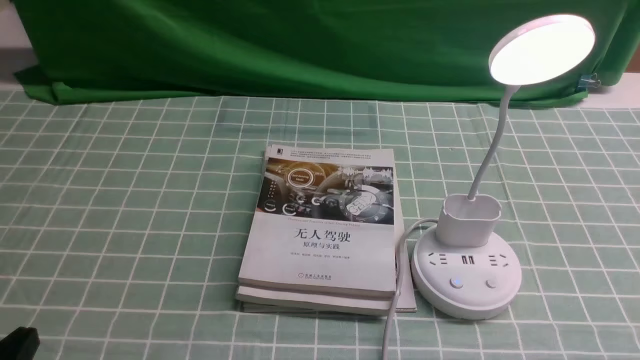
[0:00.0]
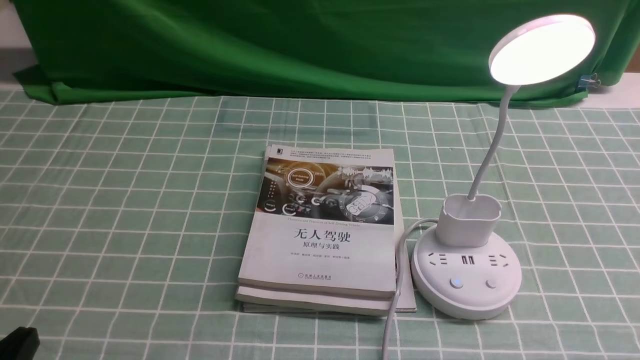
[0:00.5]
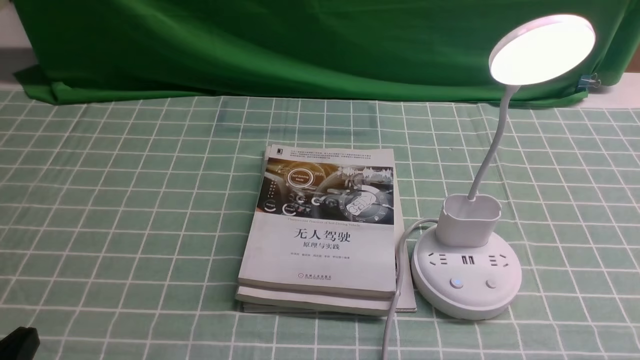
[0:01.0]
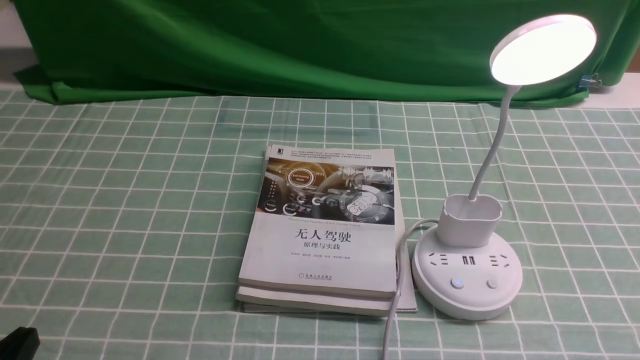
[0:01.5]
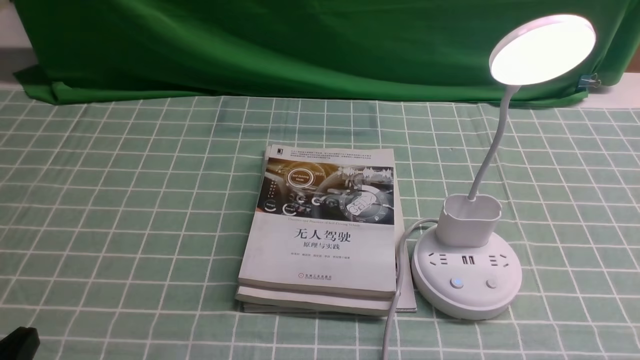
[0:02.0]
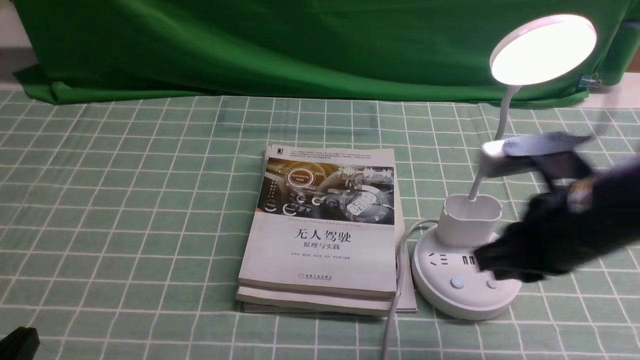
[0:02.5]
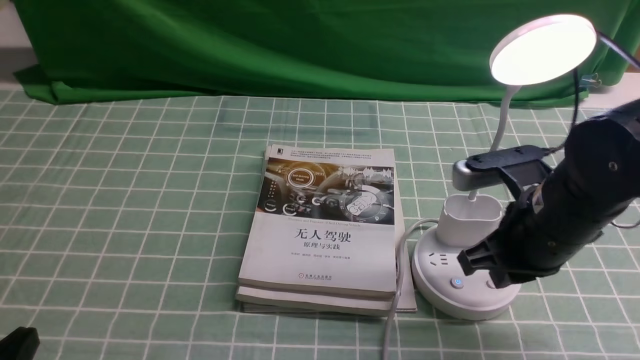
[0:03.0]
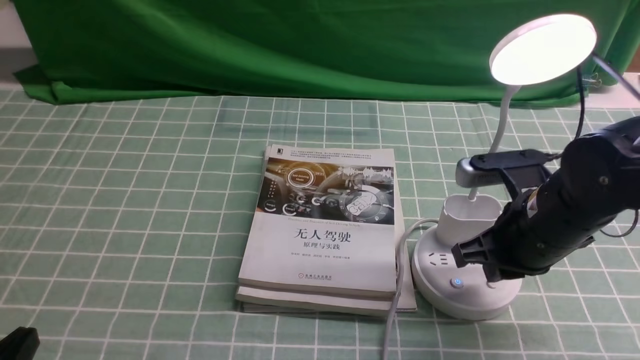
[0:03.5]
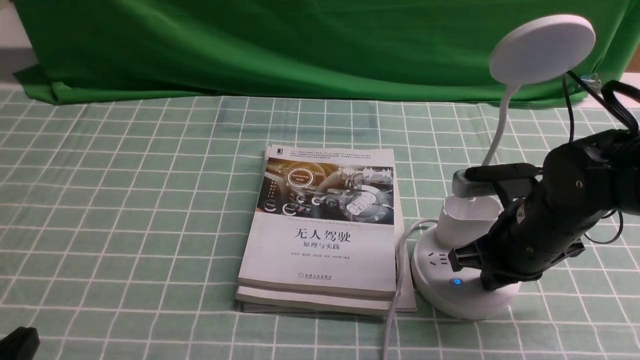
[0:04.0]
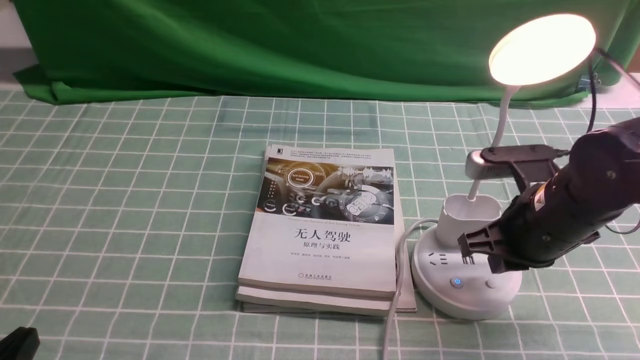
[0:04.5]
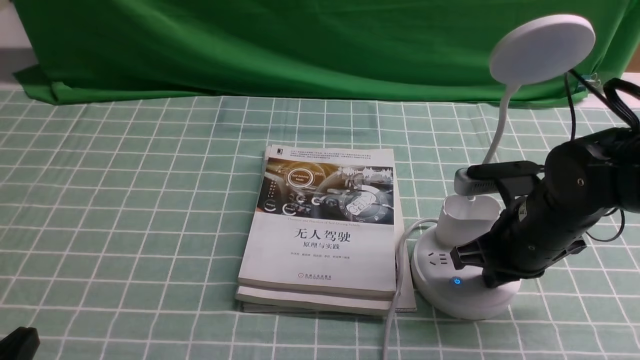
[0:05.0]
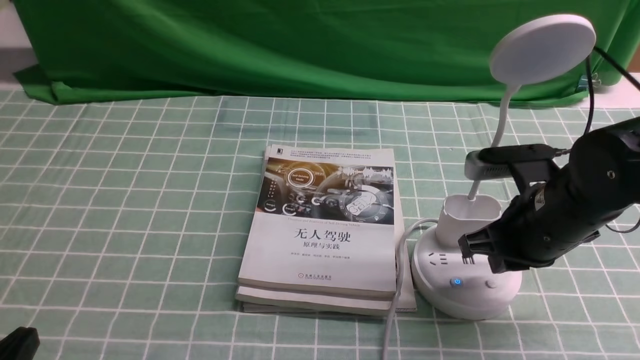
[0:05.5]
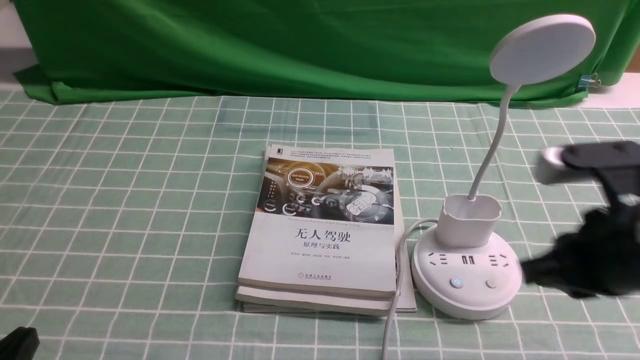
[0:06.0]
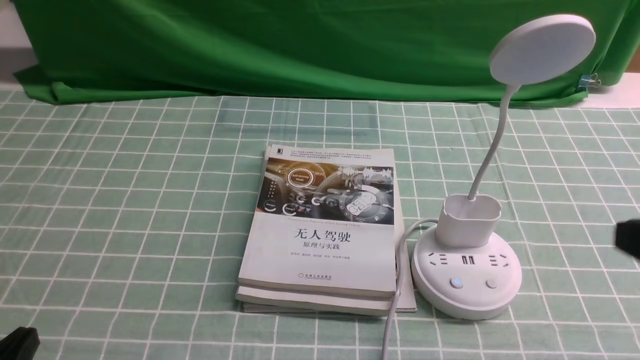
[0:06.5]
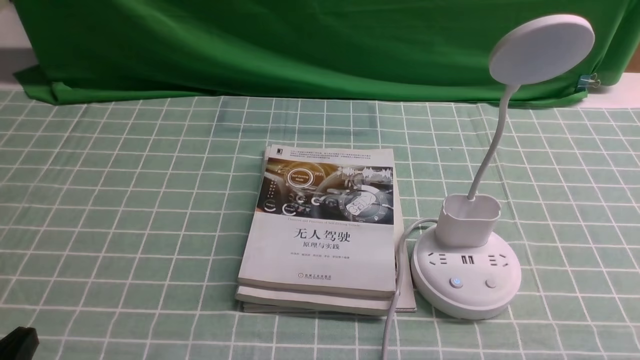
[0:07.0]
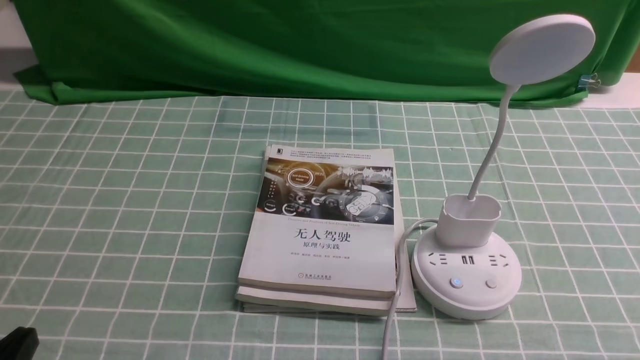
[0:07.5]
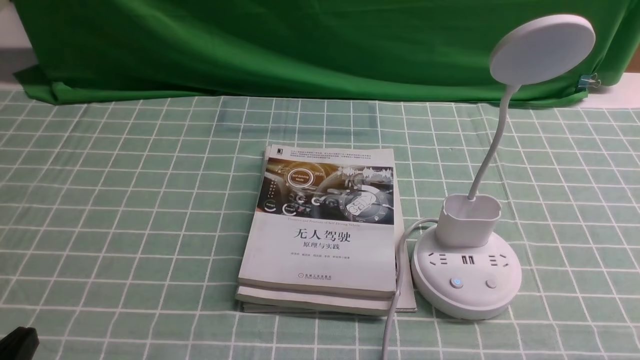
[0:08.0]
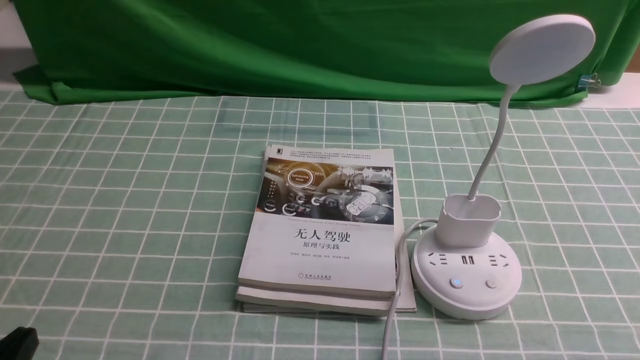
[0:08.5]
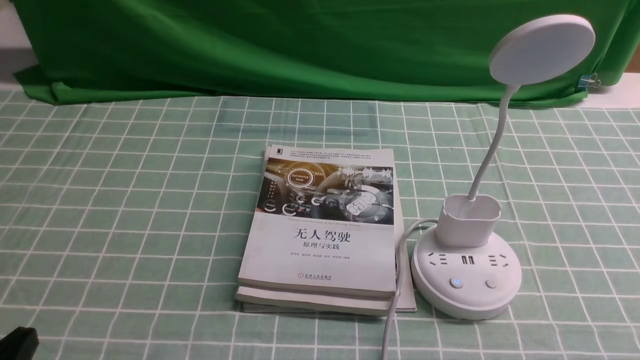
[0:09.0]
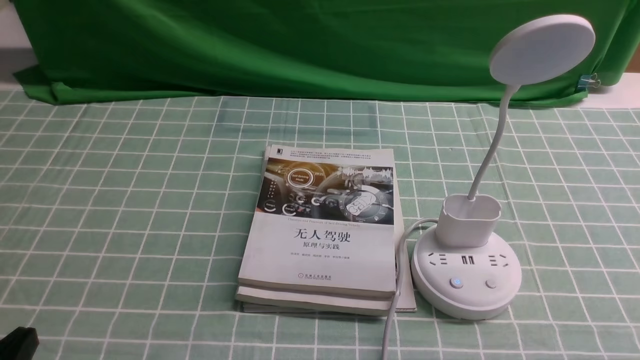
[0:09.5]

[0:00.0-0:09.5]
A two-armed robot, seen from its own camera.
Task of the whole recording: turn off the desk lamp on the blue coffee tablecloth by hand.
Step, 0:00.0 to 0:05.5: use the right arm to press the button switch on the lamp holder.
0:02.0 to 0:04.0: The right gripper is displaced forward, downward and to the left by approximately 20 cm.
0:04.0 to 0:05.5: The grippers move only a little.
0:05.5 to 0:07.5: The right gripper heads backward and to the right, covering approximately 25 cm.

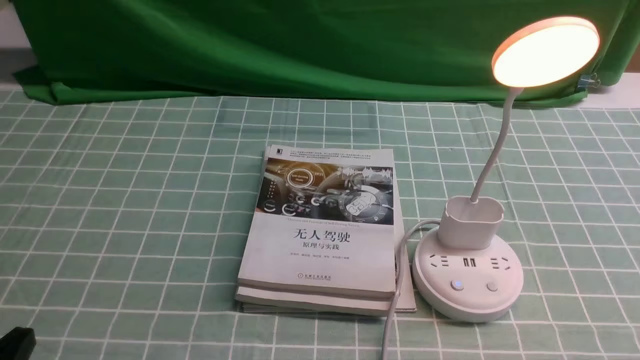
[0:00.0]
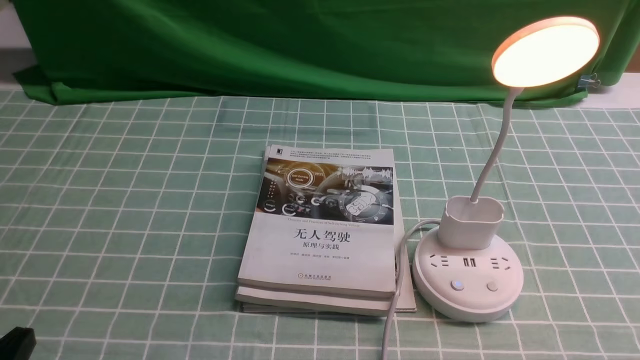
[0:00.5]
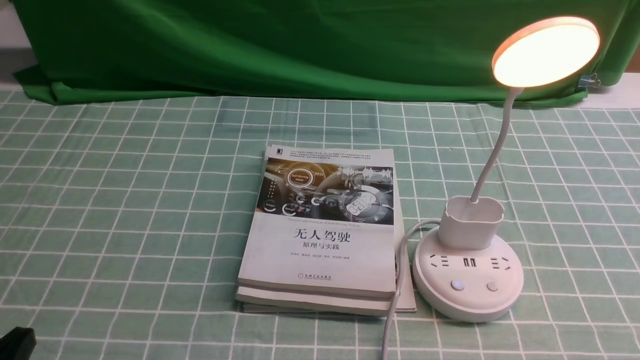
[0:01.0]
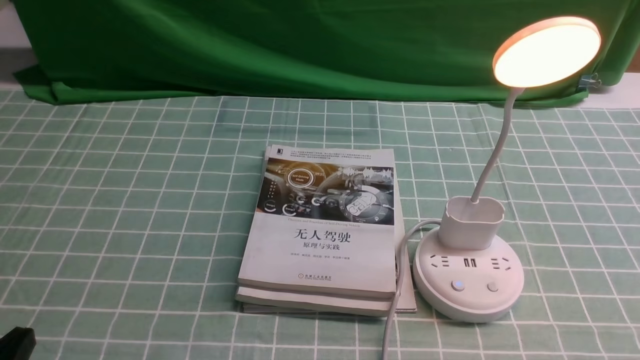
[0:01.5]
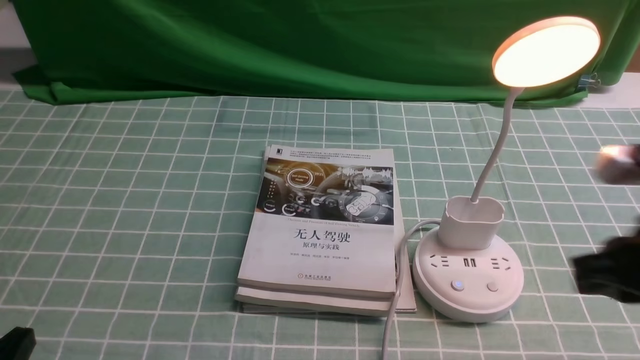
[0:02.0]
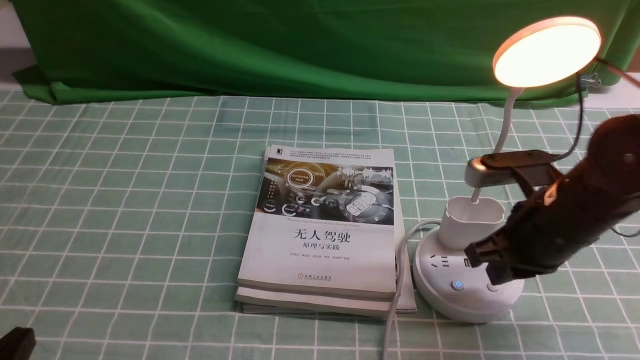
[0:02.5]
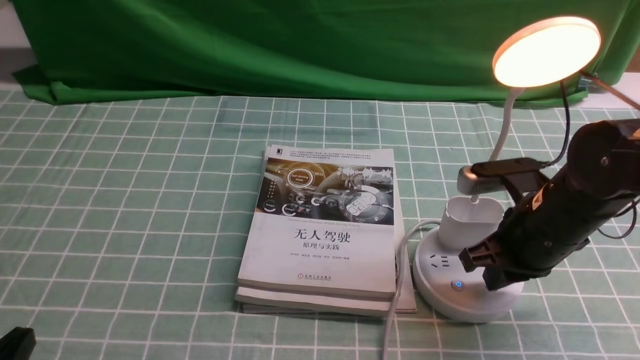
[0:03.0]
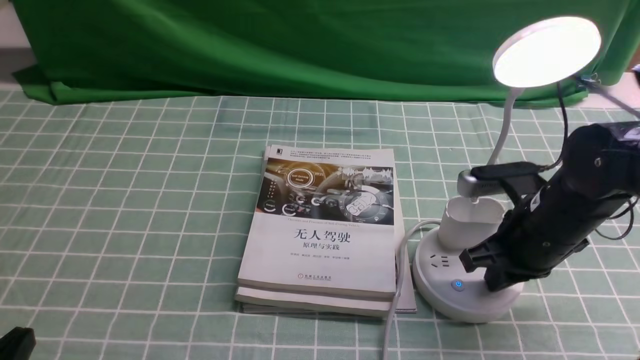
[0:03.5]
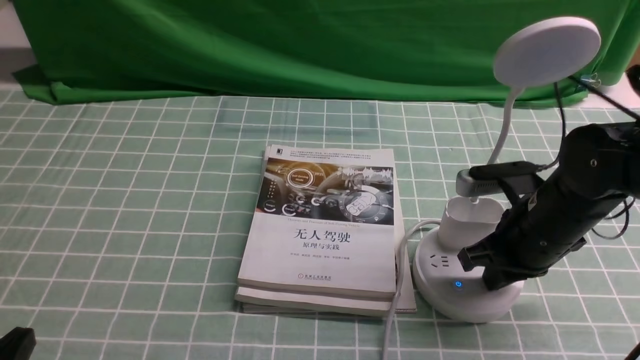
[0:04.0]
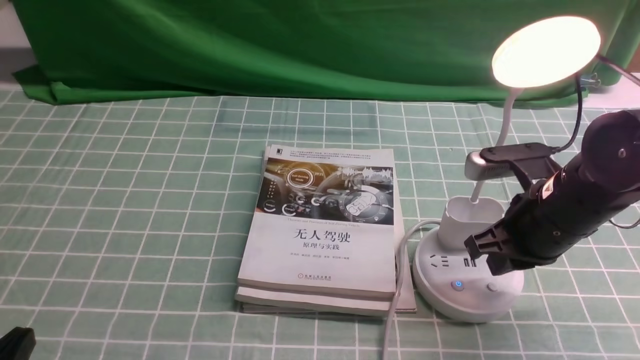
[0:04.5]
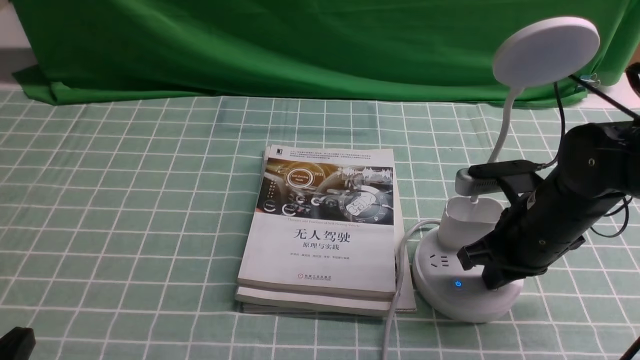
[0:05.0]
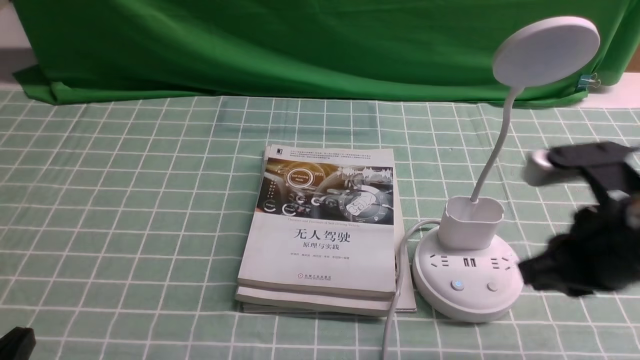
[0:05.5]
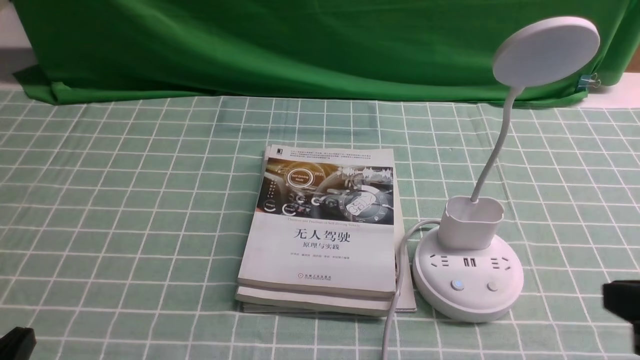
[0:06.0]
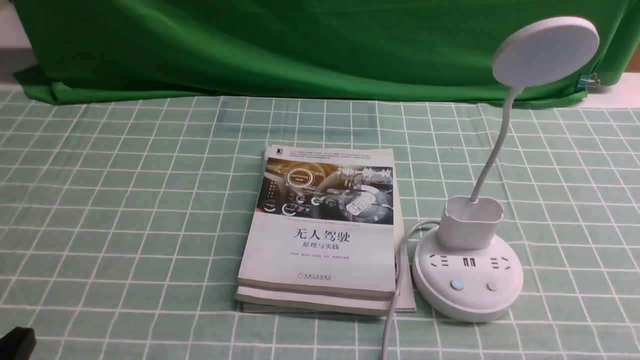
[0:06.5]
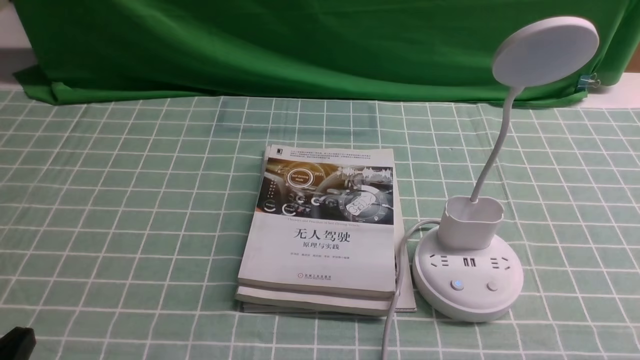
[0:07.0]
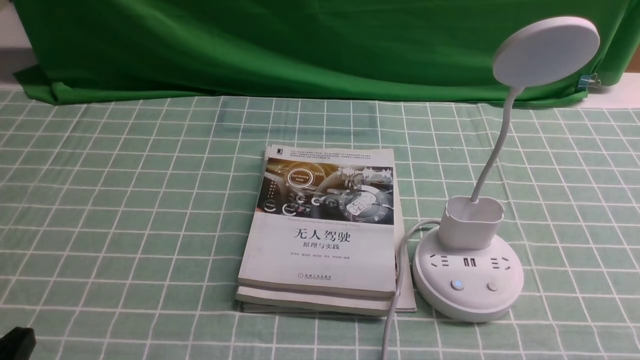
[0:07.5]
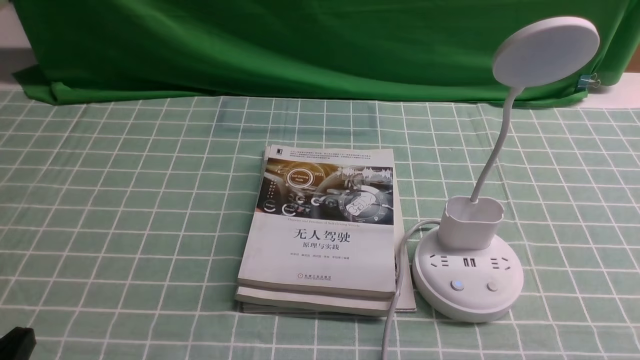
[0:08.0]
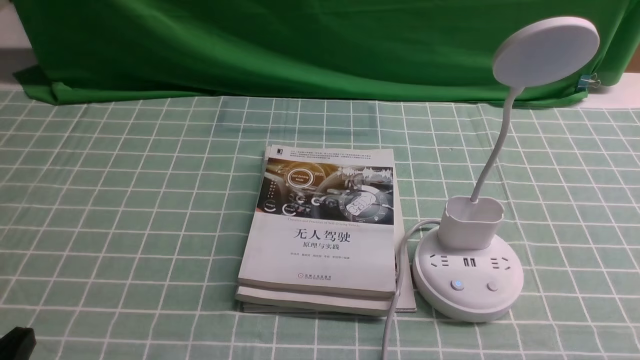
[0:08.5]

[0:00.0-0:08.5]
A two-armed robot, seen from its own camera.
Task of the whole recording: turn off the desk lamp on the blue coffee tablecloth by hand.
Step, 0:00.0 to 0:05.0: use the right arm to press the button switch on the lamp holder.
0:02.0 to 0:04.0: The right gripper moves forward, downward and to the left, some 15 cm.
0:04.0 to 0:06.5: The right gripper travels backward and to the right by some 25 cm.

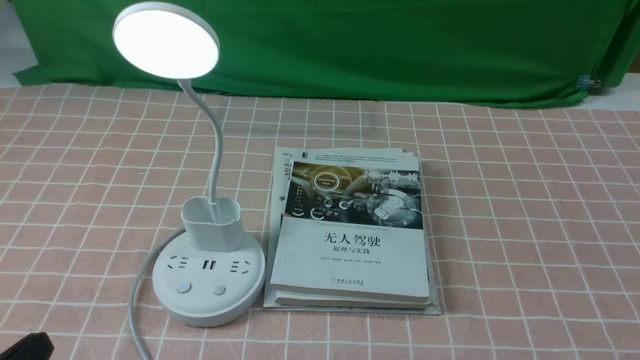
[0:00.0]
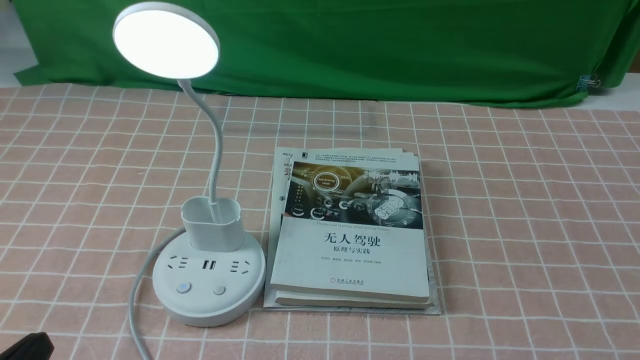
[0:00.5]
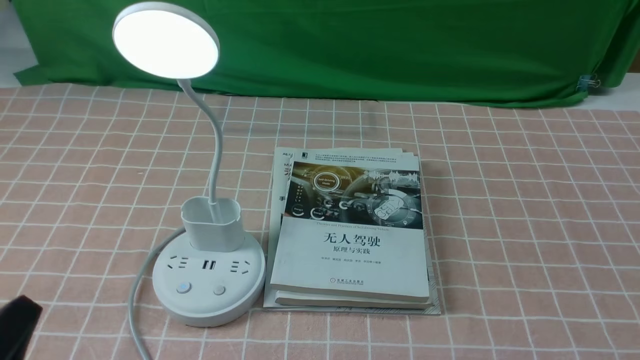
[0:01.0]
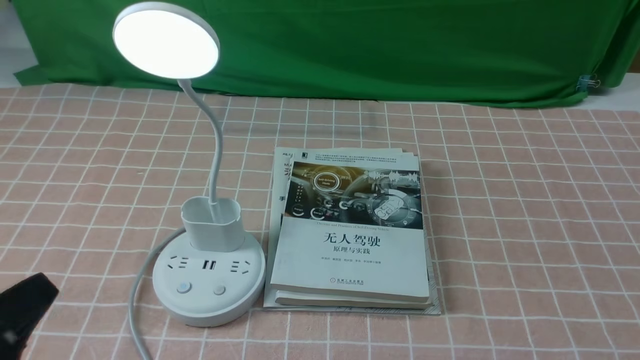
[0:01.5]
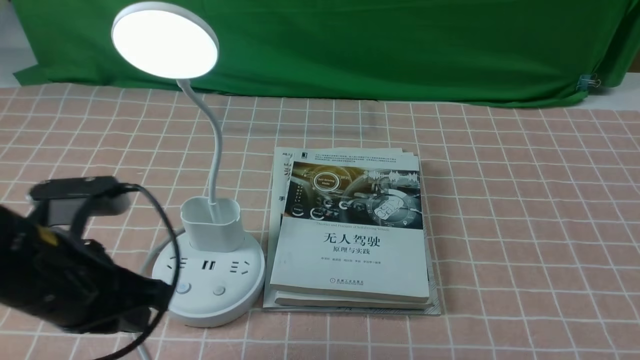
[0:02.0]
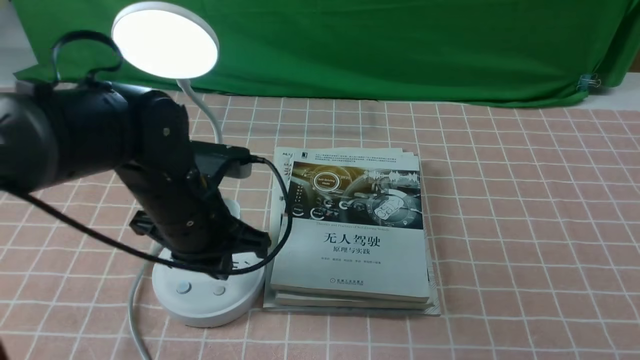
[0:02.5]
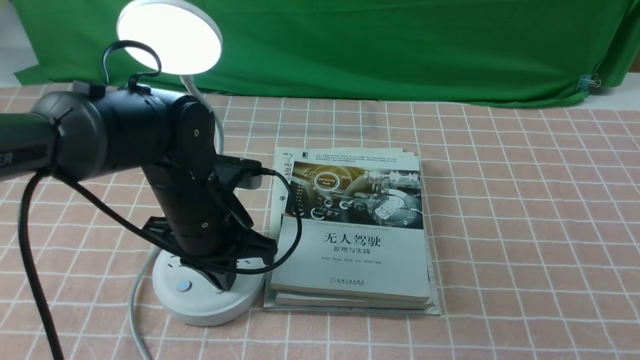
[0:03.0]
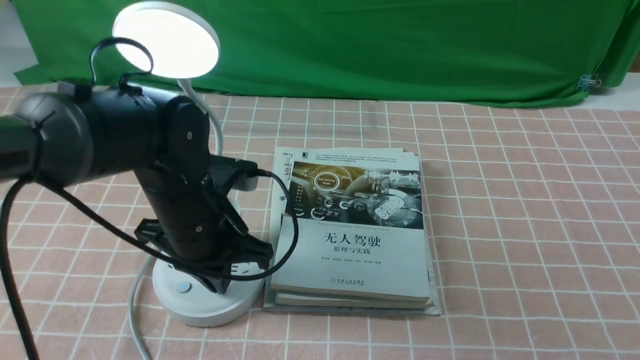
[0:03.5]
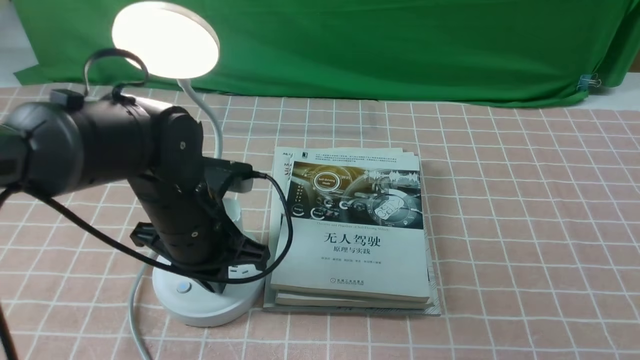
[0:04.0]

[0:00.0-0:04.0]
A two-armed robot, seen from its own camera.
Task of the whole recording: turn off the table lamp on the pink coffee tablecloth by hand.
0:02.0 to 0:04.0: The left gripper moves forward, to the right and downward, some 15 cm, and closes its fingers.
